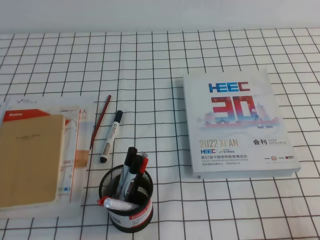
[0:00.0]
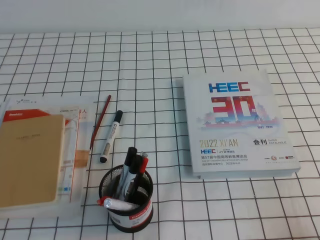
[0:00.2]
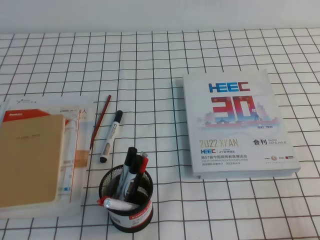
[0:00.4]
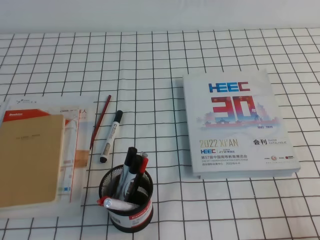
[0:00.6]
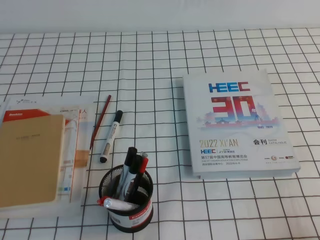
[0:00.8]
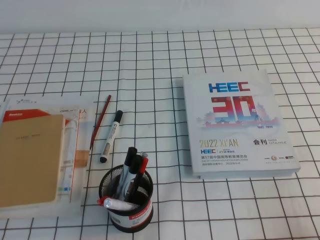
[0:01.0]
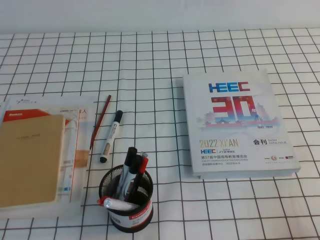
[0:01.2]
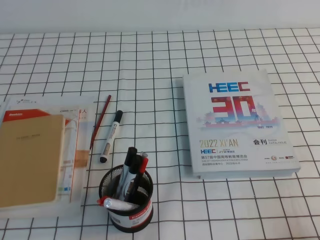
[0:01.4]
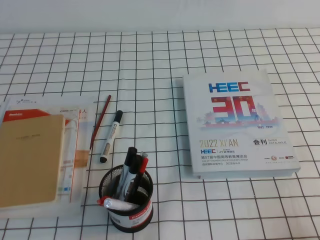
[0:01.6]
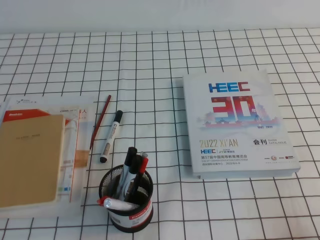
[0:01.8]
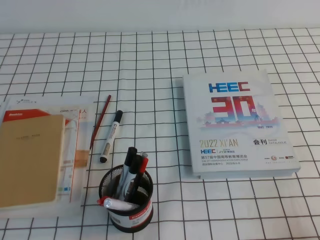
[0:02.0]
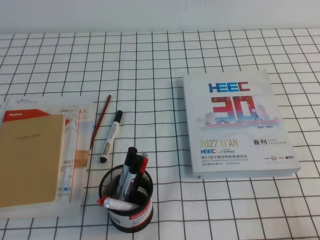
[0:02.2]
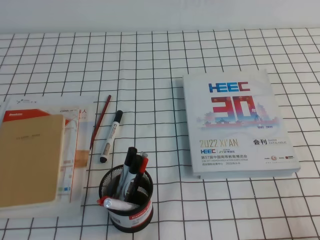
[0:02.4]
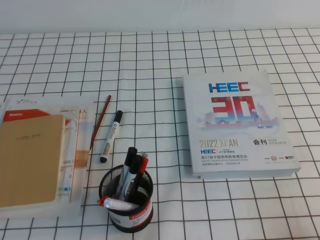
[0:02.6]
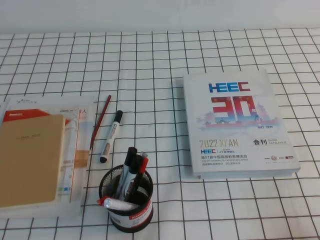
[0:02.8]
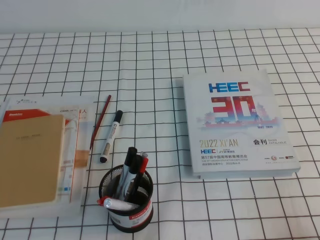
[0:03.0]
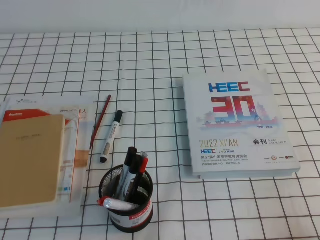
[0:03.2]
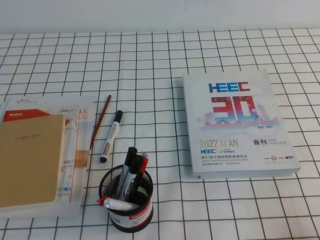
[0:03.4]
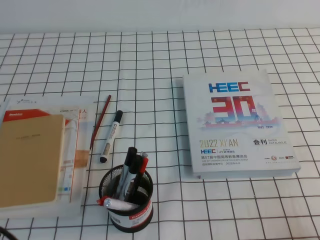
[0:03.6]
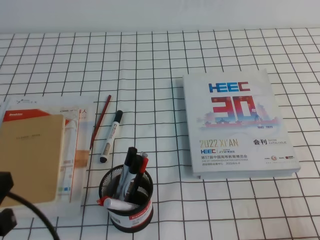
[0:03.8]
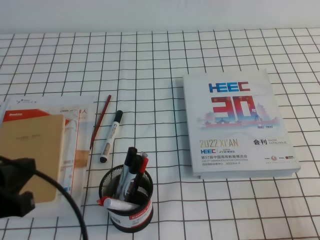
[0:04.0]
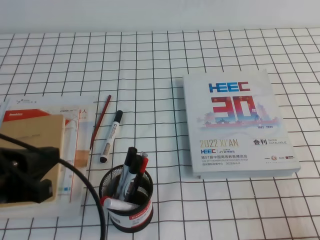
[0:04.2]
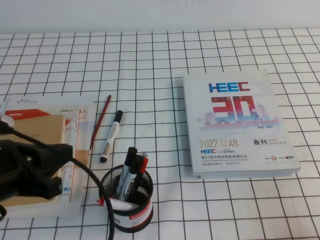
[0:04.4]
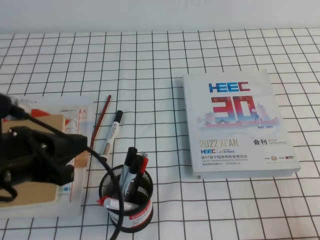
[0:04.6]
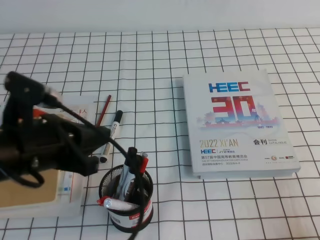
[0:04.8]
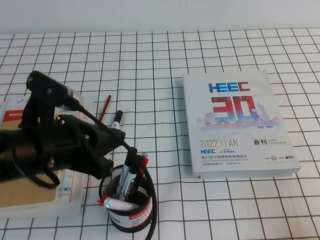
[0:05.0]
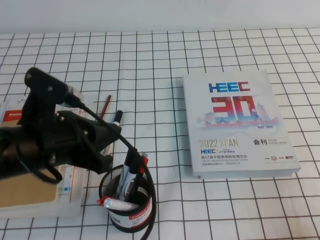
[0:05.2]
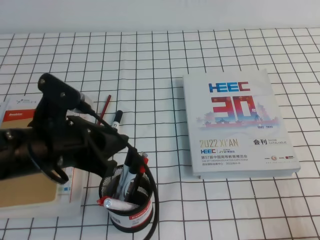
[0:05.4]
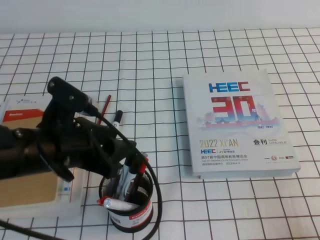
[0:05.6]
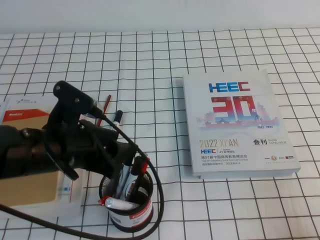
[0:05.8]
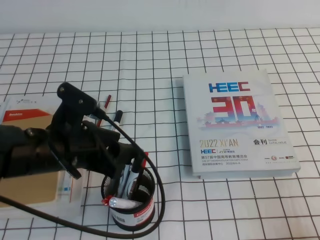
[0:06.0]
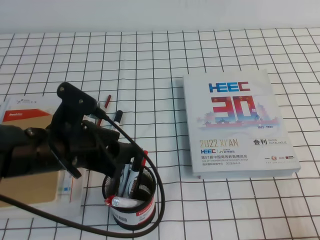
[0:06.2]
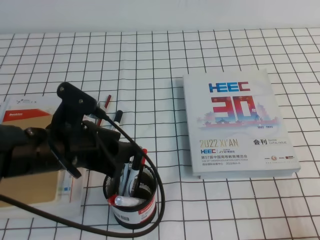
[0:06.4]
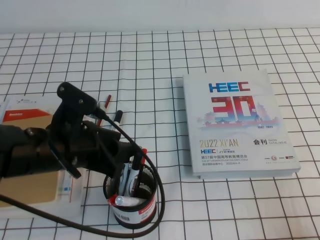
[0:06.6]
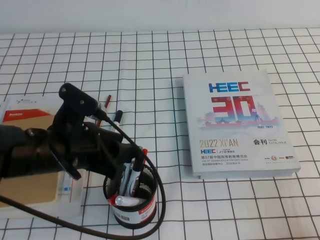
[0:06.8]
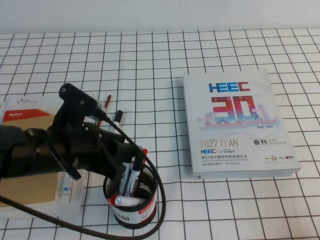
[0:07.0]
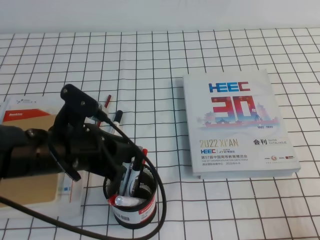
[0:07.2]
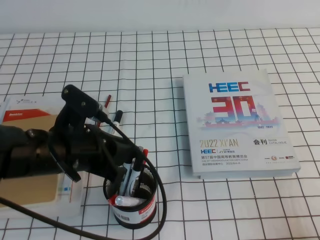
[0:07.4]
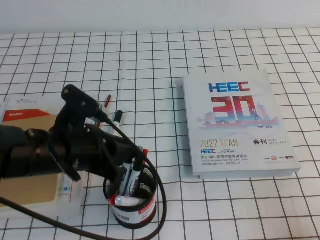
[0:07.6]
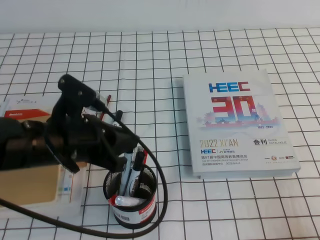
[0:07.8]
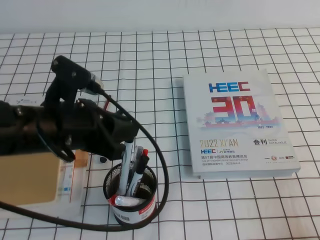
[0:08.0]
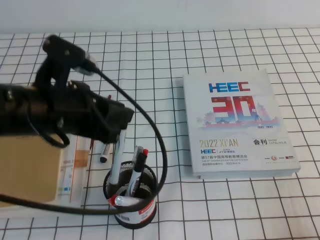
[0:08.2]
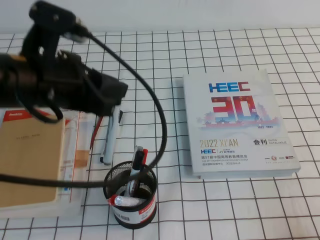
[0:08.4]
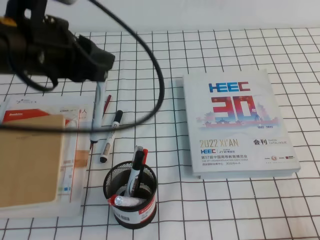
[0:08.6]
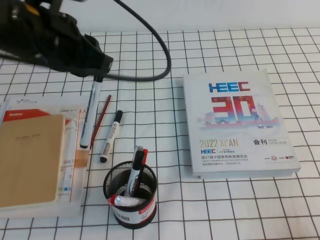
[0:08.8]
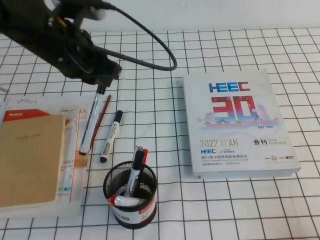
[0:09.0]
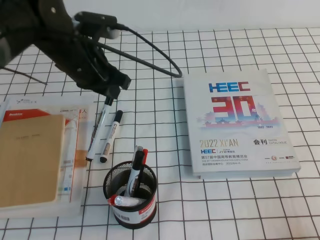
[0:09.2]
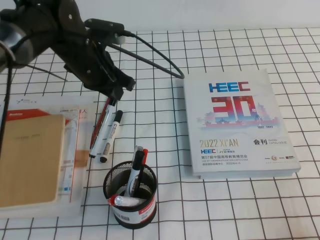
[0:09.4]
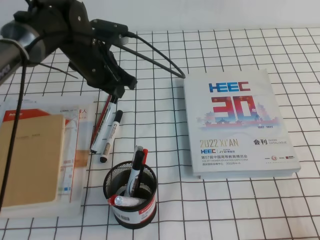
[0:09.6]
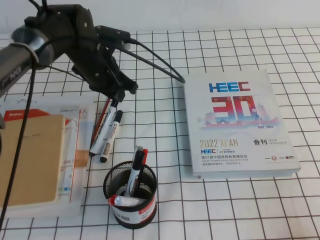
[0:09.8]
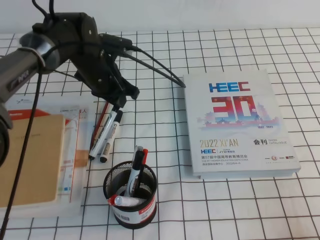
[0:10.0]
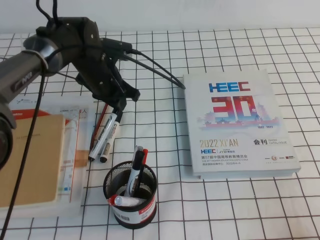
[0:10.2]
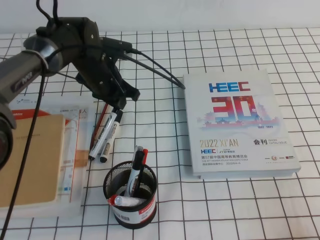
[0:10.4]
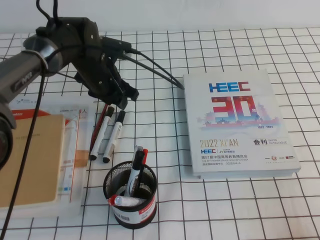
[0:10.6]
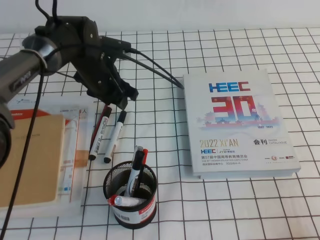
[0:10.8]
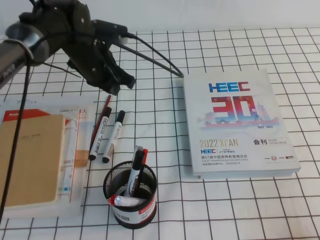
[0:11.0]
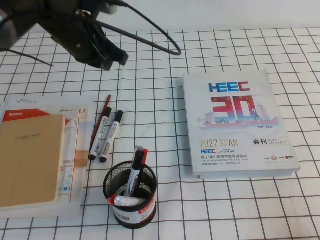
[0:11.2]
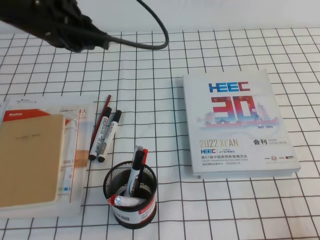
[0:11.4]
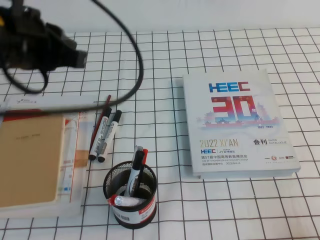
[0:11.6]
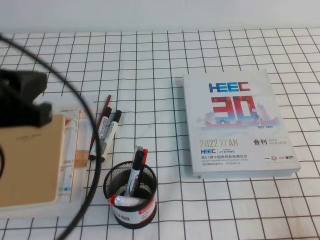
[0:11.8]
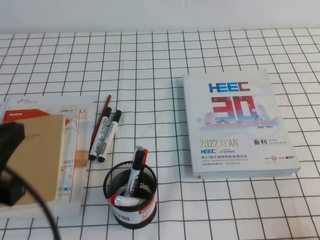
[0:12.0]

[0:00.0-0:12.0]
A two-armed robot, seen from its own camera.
0:00.0 to 0:01.6: Neither gripper changes place.
0:03.0 to 0:04.4: The left gripper shifts some 15 cm forward, upward and to the right.
0:04.4 to 0:06.0: The left gripper travels forward and to the right by approximately 10 cm, and opens up.
0:06.0 to 0:07.6: The left gripper closes up.
0:07.6 to 0:09.0: The left gripper goes approximately 15 cm upward and forward.
0:09.0 to 0:10.4: The left gripper shifts approximately 15 cm downward and forward.
0:10.4 to 0:12.0: The left gripper shifts roughly 35 cm backward and upward, and closes.

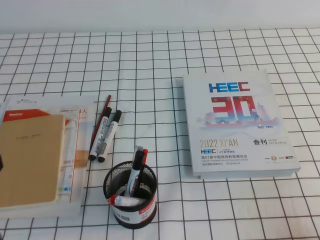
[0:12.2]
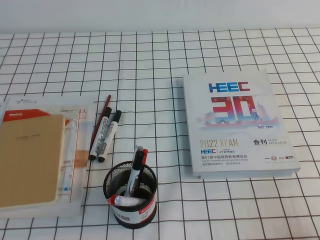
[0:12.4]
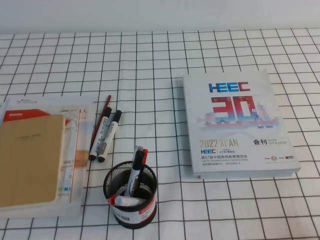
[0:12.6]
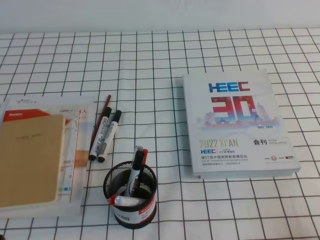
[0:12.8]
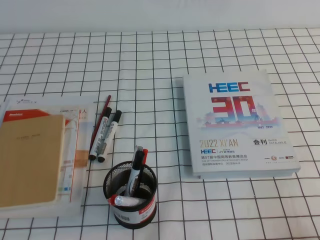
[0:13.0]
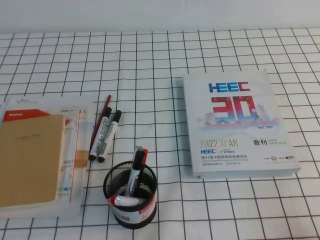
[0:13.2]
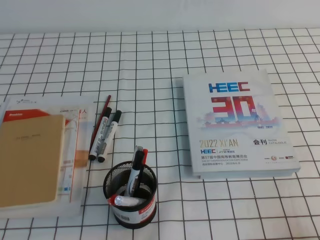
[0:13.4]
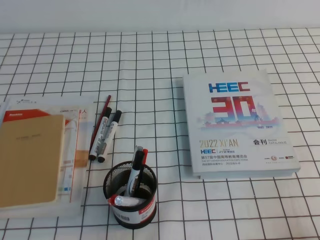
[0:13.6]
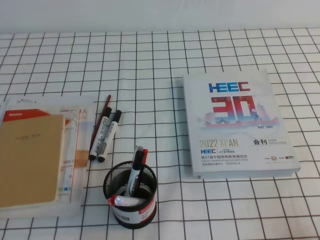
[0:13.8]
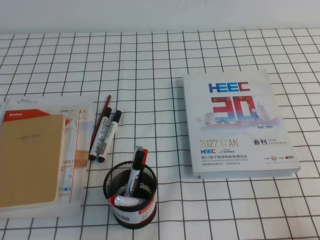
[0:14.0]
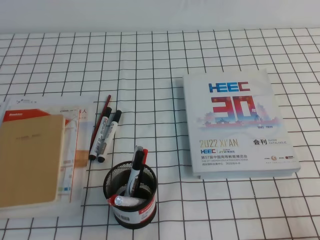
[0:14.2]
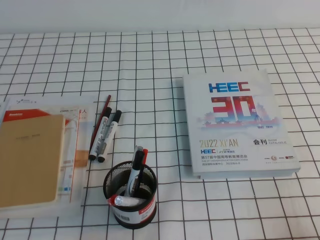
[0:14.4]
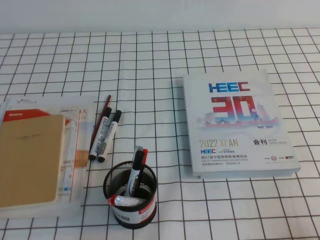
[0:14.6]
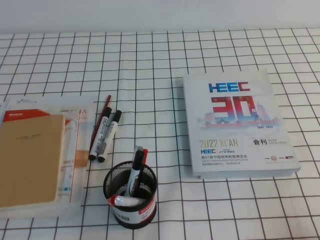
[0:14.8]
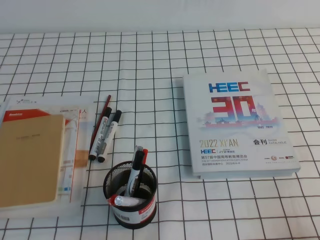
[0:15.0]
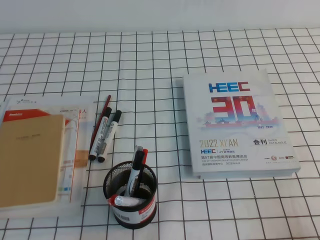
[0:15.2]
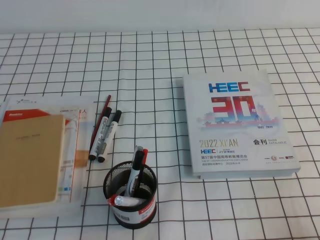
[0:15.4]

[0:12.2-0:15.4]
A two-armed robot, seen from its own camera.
0:12.2 to 0:13.8: The left gripper travels downward by approximately 15 cm.
0:13.8 to 0:15.4: Both grippers stay put.

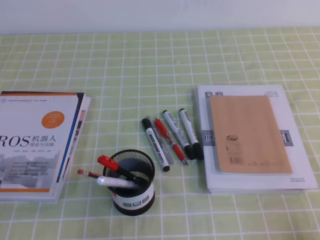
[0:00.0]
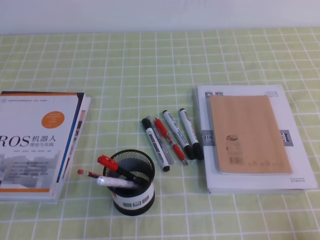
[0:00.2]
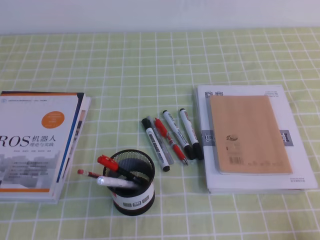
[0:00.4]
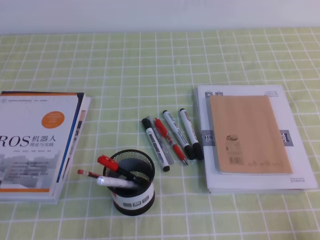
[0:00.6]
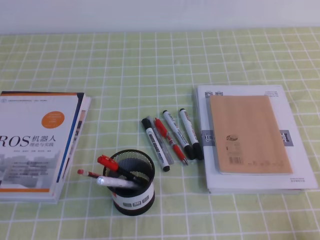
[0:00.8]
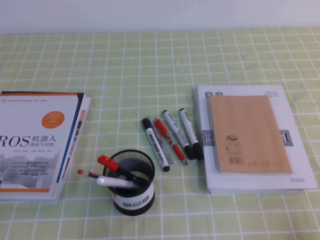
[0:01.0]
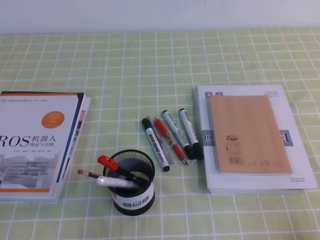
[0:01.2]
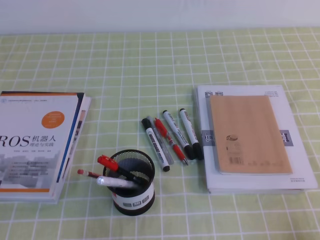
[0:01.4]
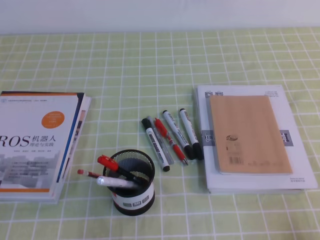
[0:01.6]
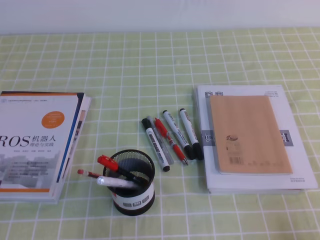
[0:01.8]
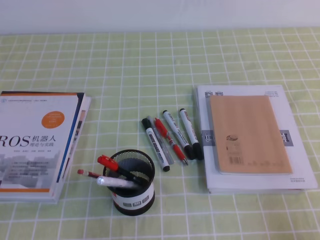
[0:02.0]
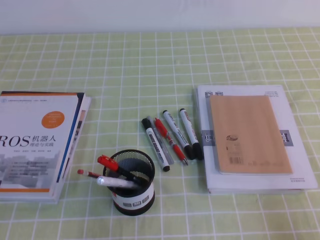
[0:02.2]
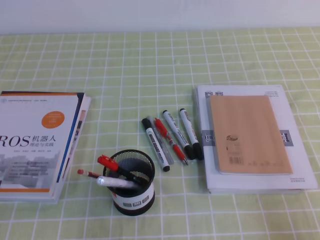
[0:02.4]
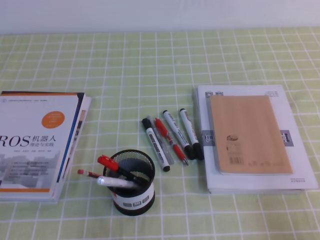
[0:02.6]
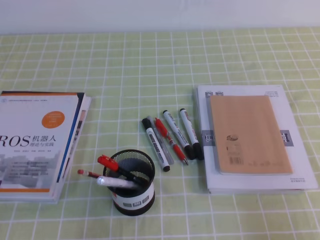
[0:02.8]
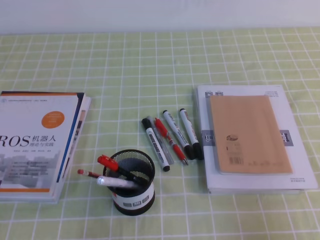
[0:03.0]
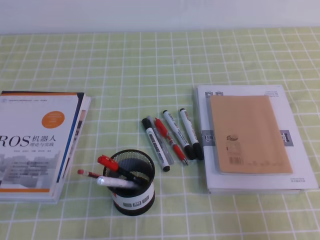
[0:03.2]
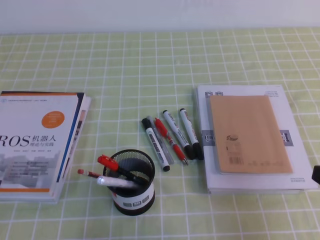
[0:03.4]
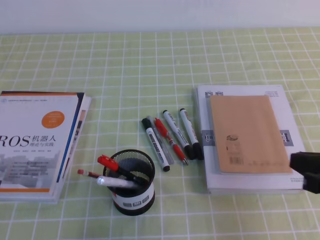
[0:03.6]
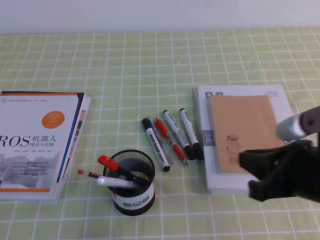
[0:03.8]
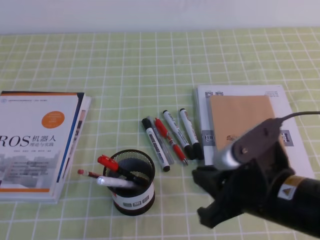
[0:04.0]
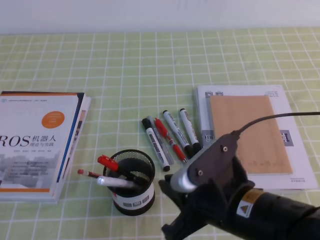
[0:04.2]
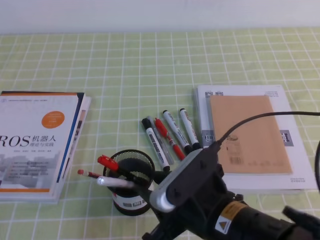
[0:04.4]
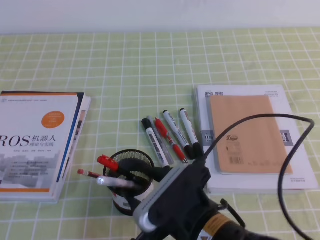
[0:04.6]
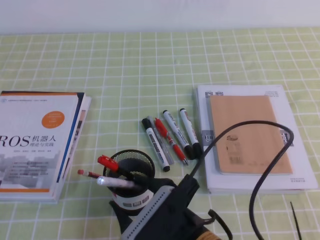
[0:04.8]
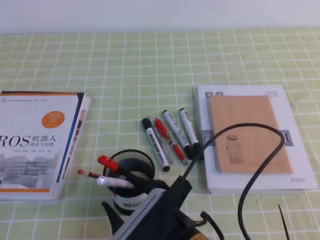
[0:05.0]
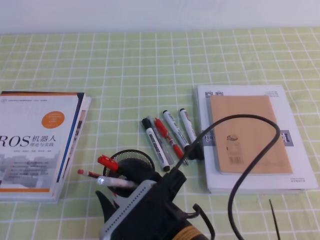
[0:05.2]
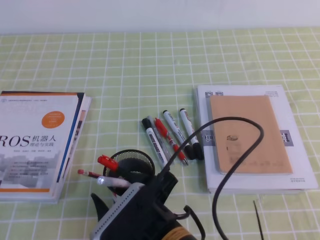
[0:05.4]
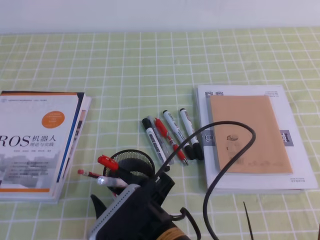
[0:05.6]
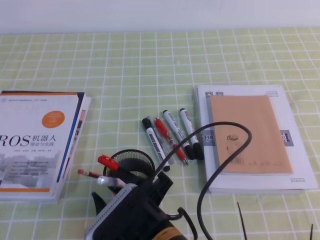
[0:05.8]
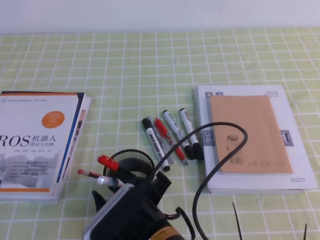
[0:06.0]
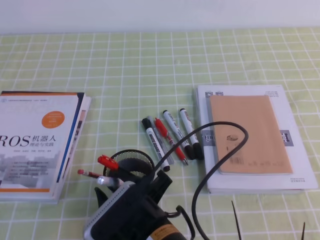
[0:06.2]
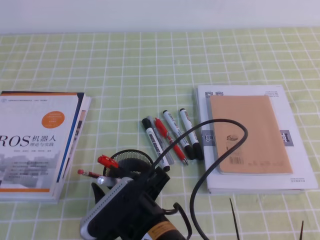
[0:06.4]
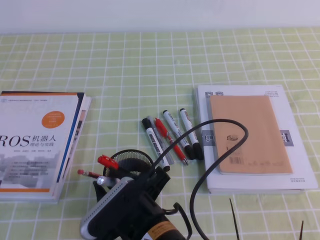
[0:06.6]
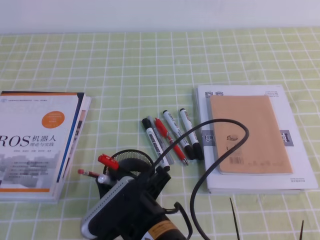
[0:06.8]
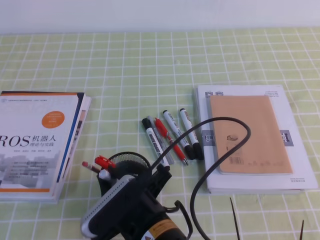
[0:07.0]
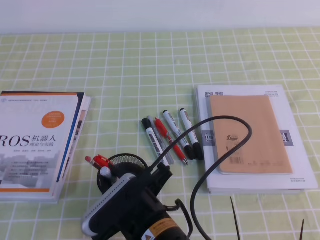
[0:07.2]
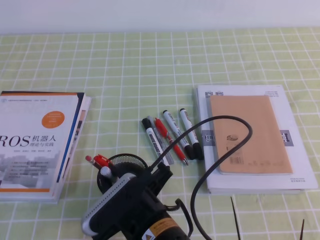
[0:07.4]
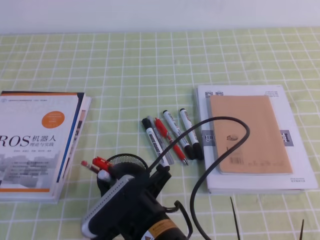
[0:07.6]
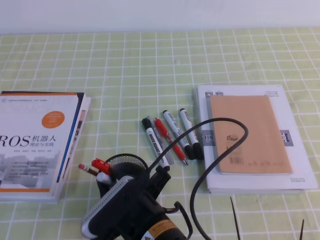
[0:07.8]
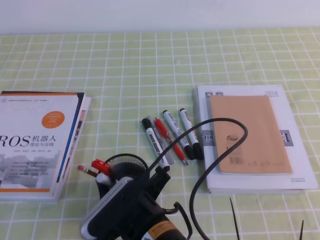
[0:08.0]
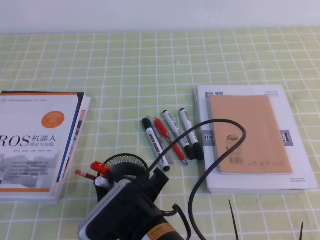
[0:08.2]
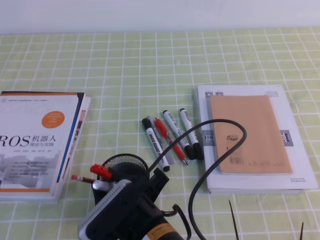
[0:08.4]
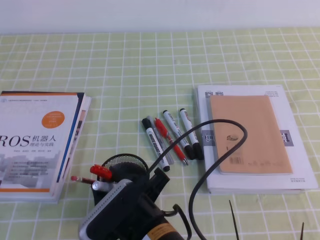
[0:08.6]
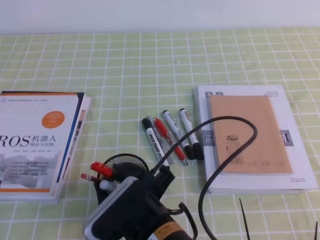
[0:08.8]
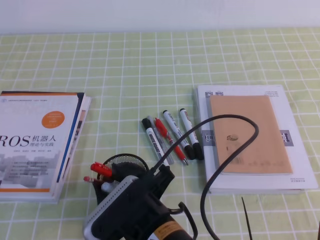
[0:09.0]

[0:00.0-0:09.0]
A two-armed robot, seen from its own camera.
0:00.0 to 0:01.6: Both grippers stay about where they are.
0:01.6 to 0:03.0: The right gripper goes about 5 cm upward.
0:03.0 to 0:04.4: The right gripper heads to the left, covering about 20 cm, and opens its fingers.
0:04.4 to 0:06.0: The right gripper moves to the left and downward, roughly 10 cm, and opens.
0:06.0 to 0:07.6: The right gripper closes.
0:07.6 to 0:09.0: The right gripper opens up.
